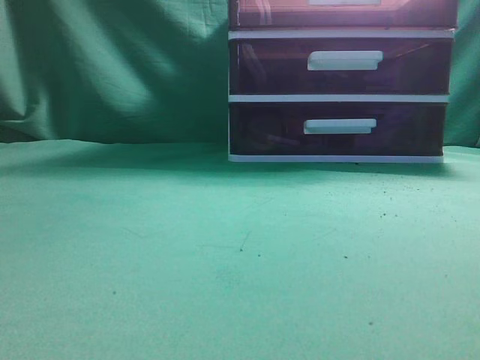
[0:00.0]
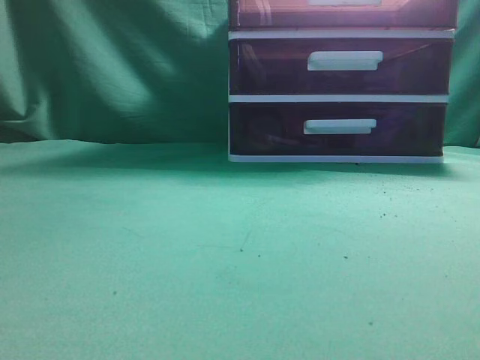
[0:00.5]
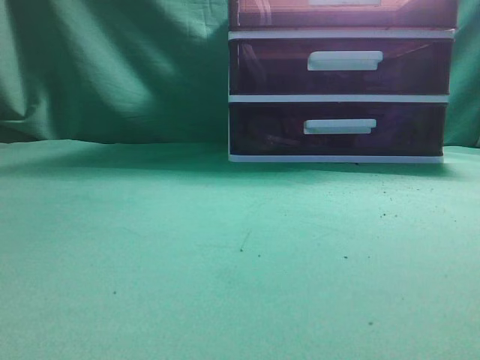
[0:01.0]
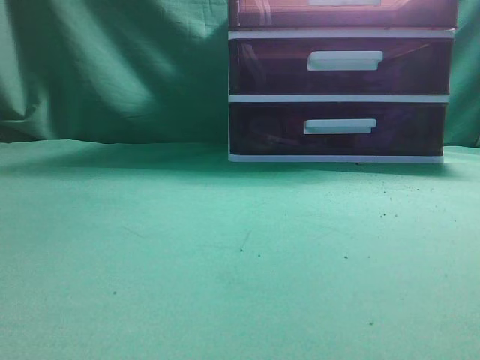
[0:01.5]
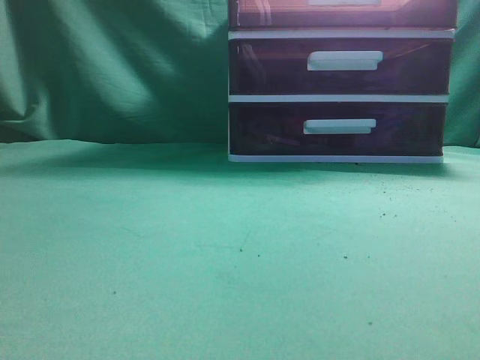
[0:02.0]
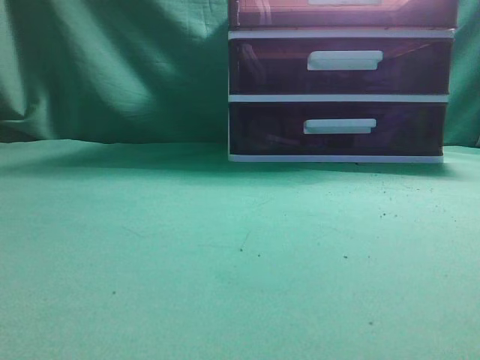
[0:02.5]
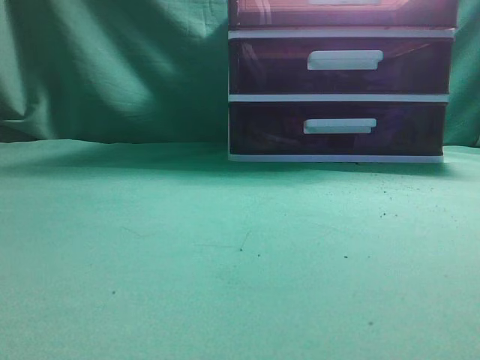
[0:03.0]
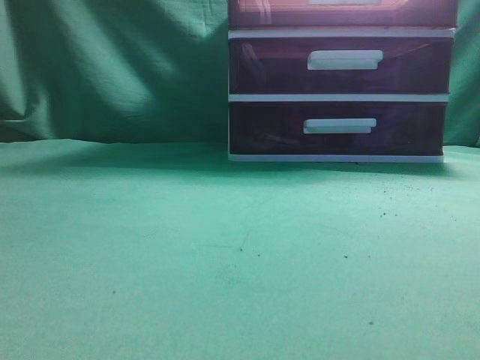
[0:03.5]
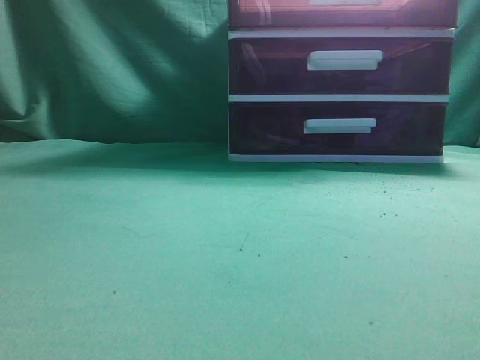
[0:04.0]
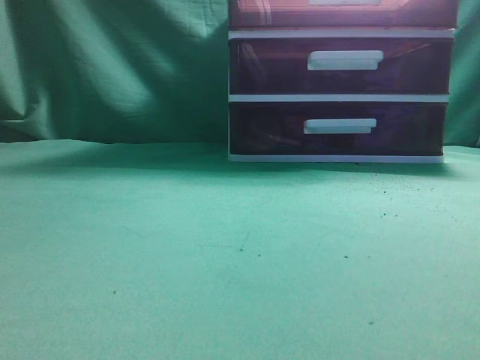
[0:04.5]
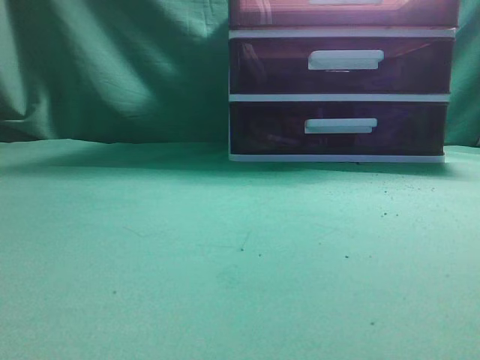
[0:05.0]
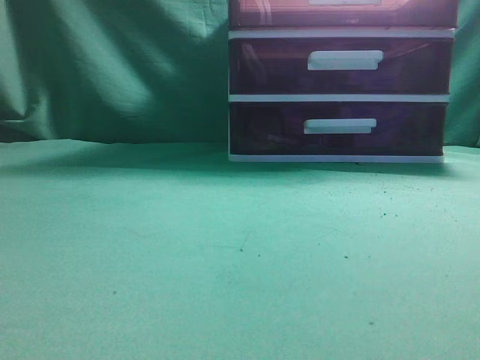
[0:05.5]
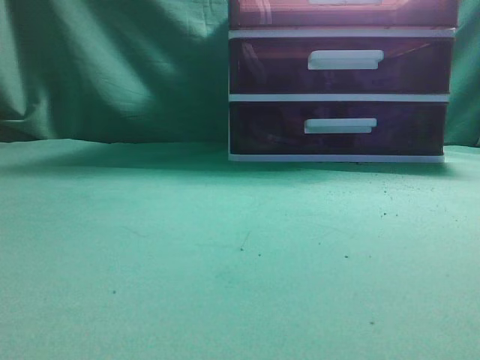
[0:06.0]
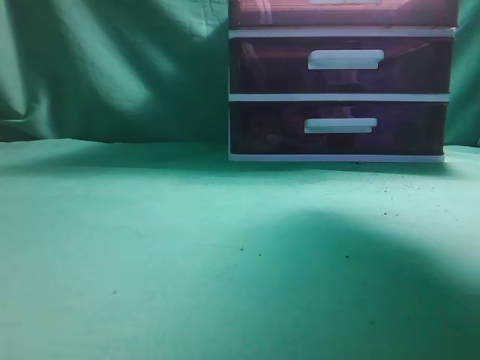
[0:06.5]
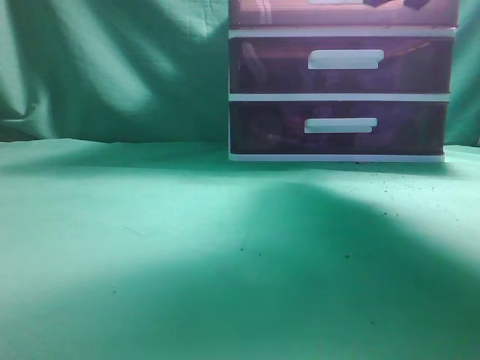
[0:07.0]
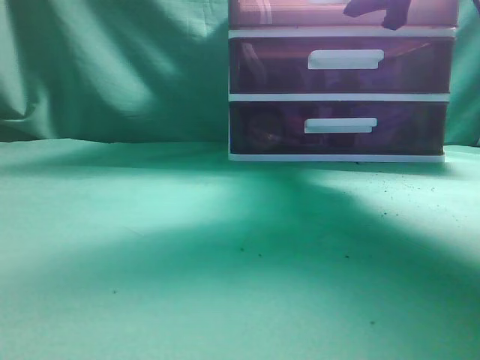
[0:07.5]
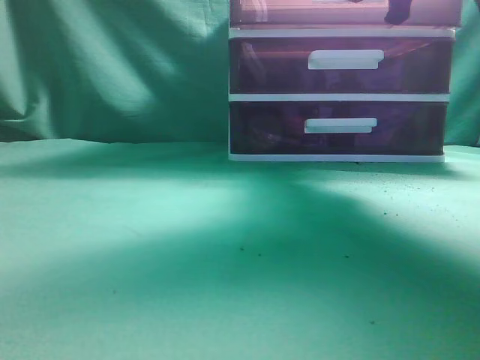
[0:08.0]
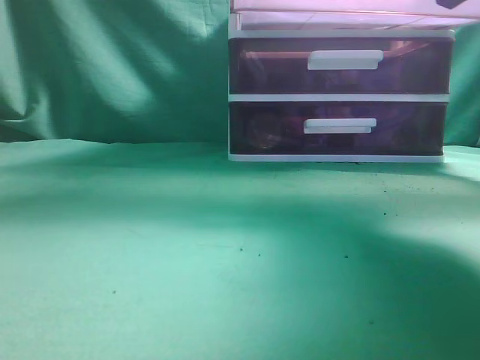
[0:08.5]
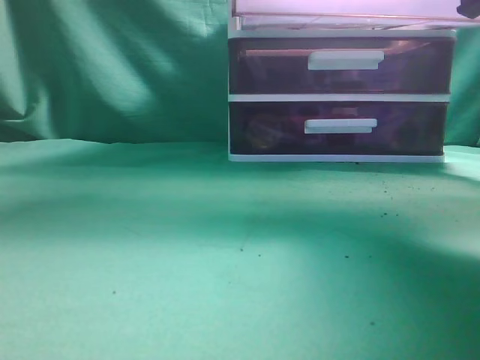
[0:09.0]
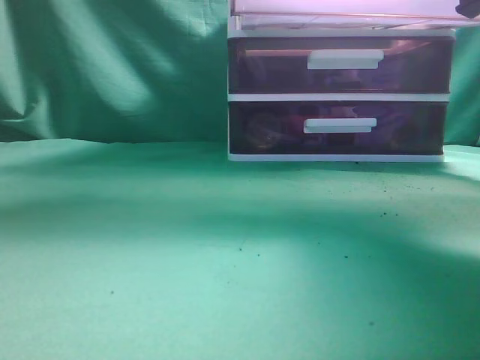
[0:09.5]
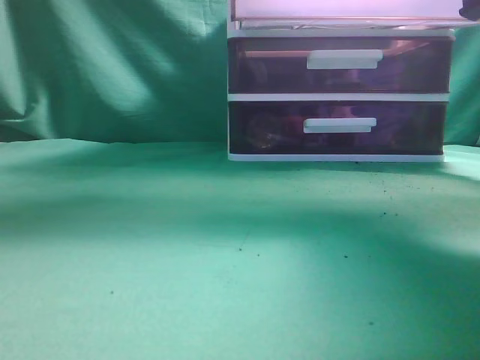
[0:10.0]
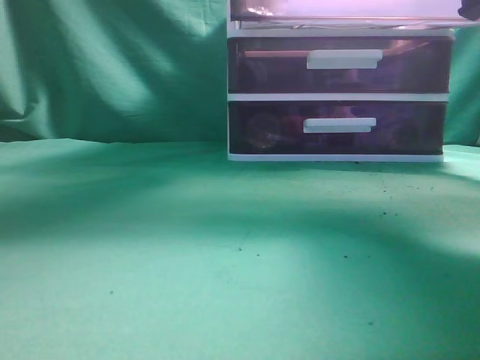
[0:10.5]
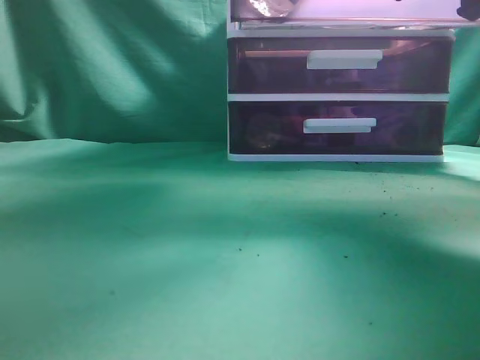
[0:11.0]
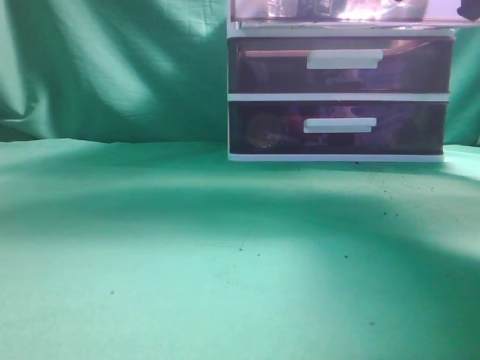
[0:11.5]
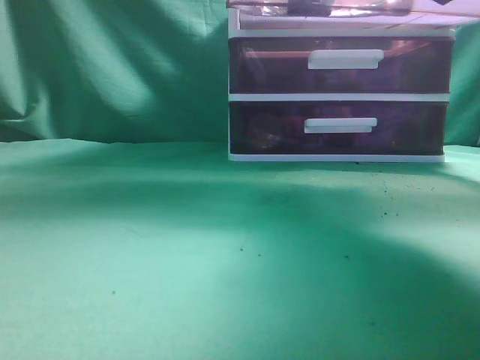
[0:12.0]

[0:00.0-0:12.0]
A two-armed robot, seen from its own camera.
Task of the whole recording: place the water bottle into the drawer.
Step, 0:00.0 to 0:08.5: Open the drawer.
Step, 0:09.0 to 0:11.5: Place the water bottle inside the drawer.
0:06.0 to 0:08.0: The right gripper heads forward, covering approximately 20 cm, and opens and closes again.
0:08.0 to 0:10.0: The left gripper is displaced forward, to the right and upward by some 30 cm, while the right gripper is displaced backward by about 10 cm.
0:10.0 to 0:12.0: The left gripper travels backward and upward by approximately 10 cm, and closes its fingers.

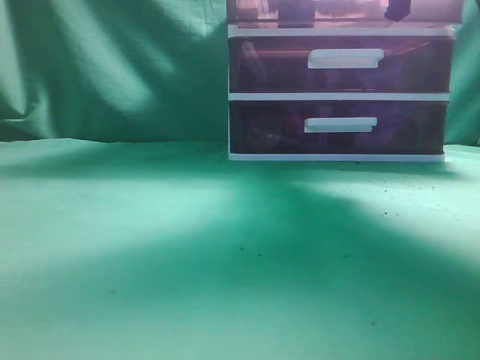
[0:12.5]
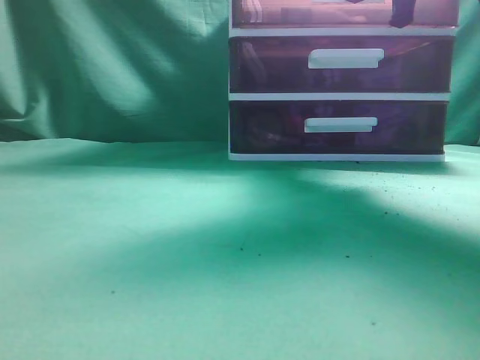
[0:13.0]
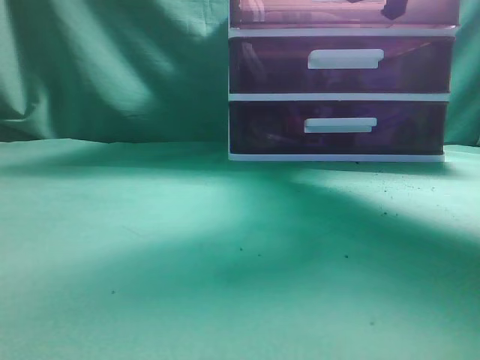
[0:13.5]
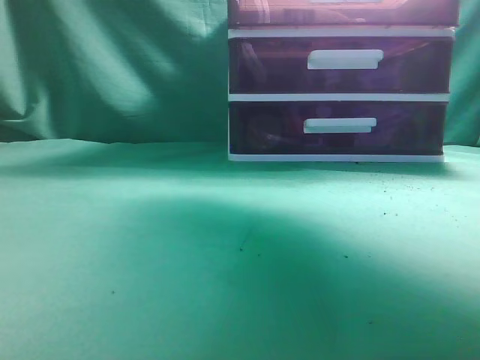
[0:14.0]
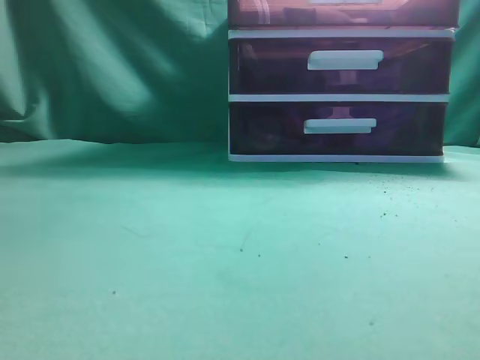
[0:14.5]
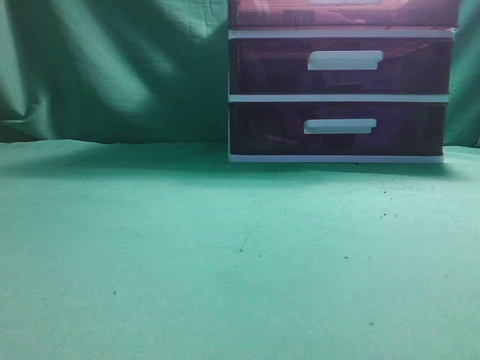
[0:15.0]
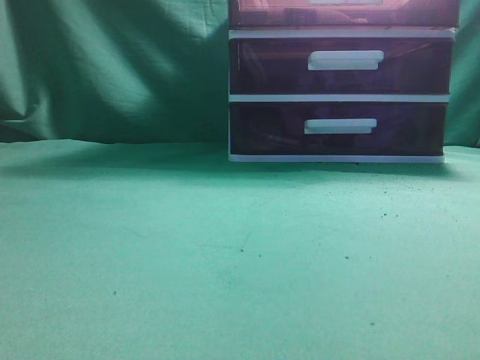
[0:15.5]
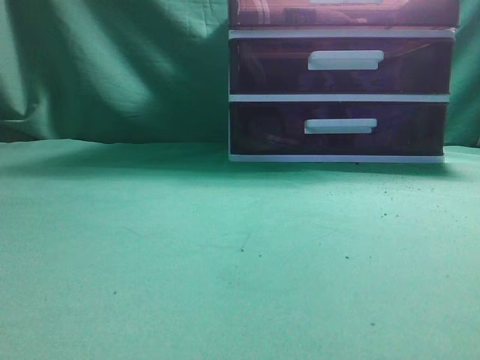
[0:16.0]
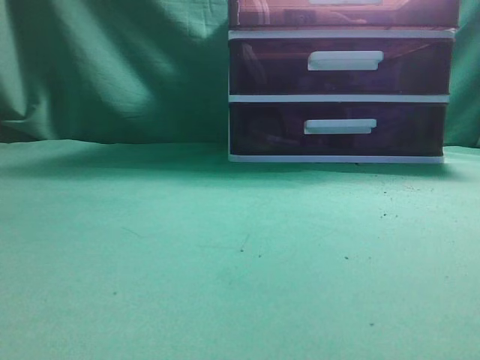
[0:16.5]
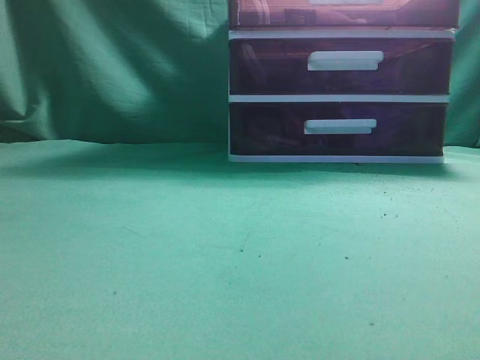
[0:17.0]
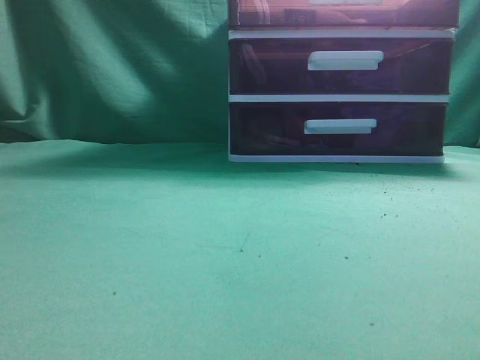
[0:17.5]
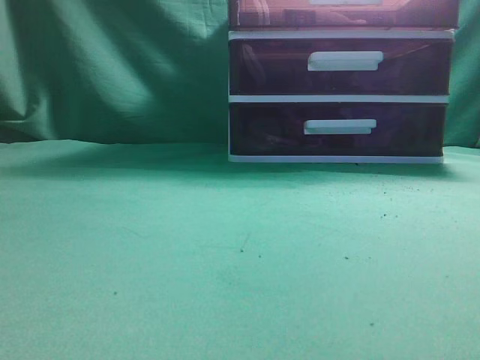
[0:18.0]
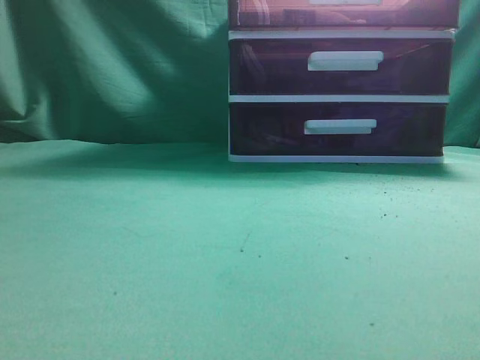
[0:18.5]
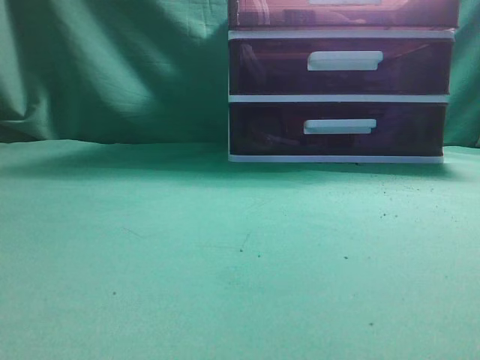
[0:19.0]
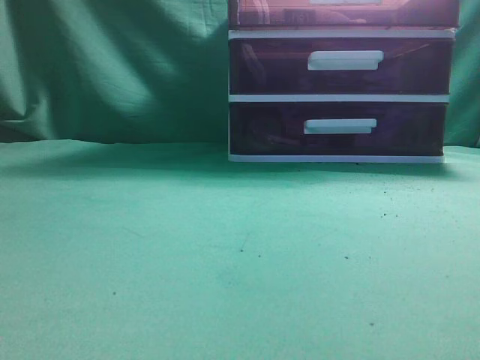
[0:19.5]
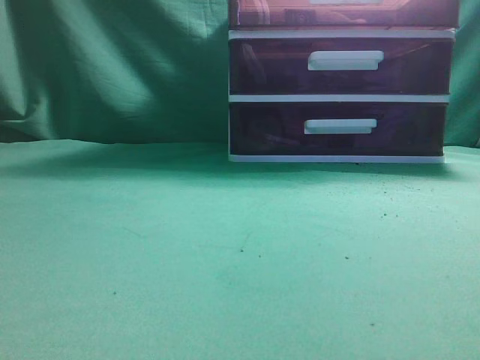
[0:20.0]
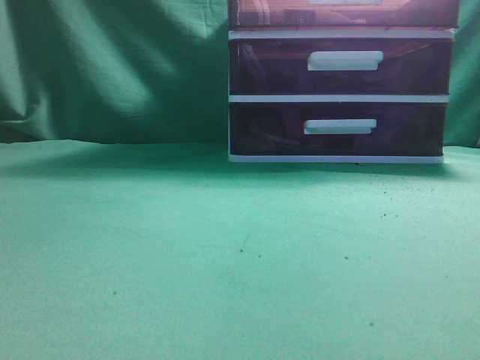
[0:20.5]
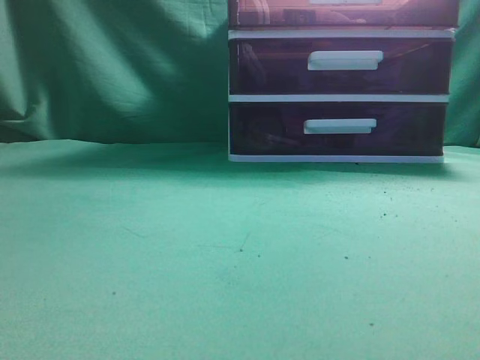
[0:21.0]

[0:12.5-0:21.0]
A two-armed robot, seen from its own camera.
Task of the whole recording: place the water bottle into the drawer.
Step, 0:12.5 to 0:13.5: Close the drawer.
0:12.5 to 0:14.5: The right gripper shifts some 15 cm upward and backward. The left gripper goes about 10 cm backward and to the left.

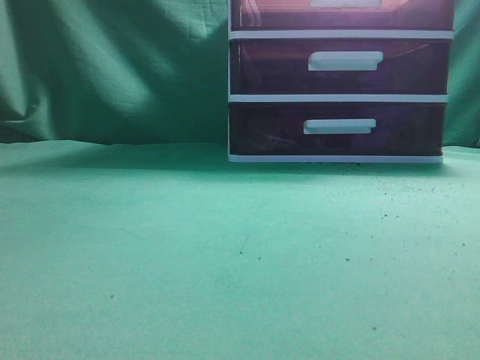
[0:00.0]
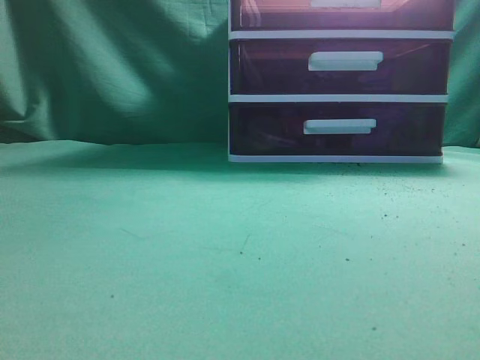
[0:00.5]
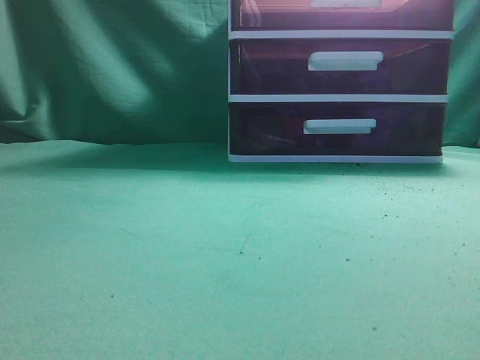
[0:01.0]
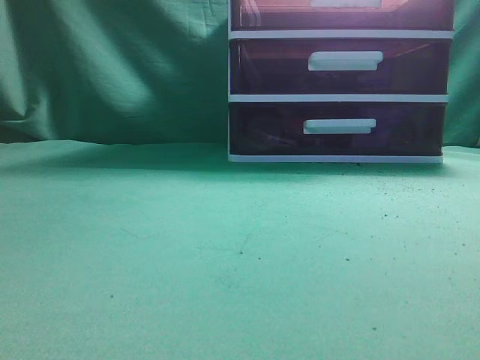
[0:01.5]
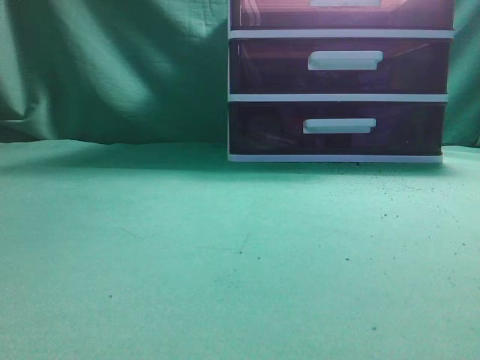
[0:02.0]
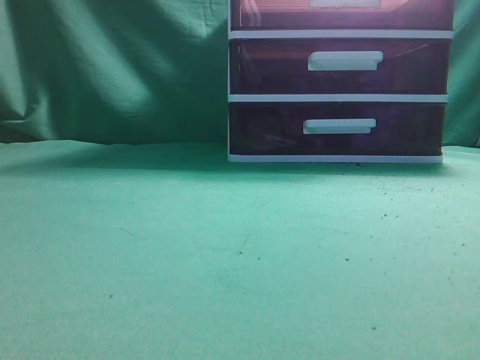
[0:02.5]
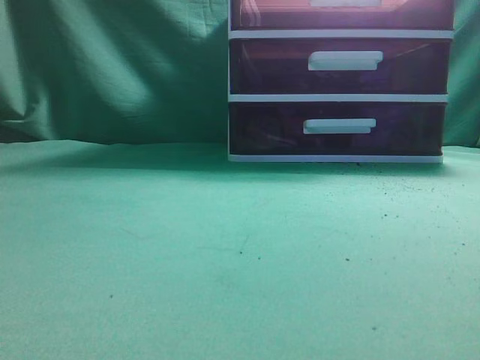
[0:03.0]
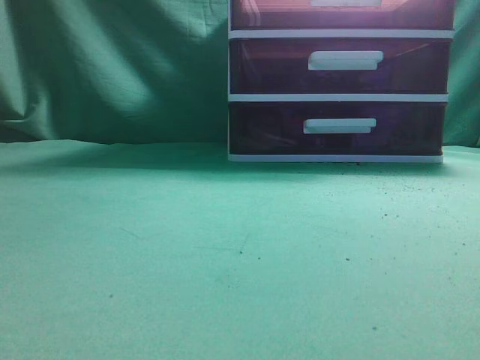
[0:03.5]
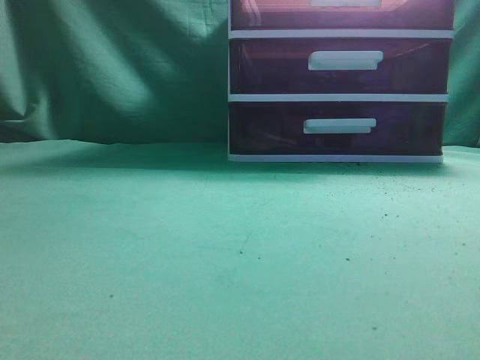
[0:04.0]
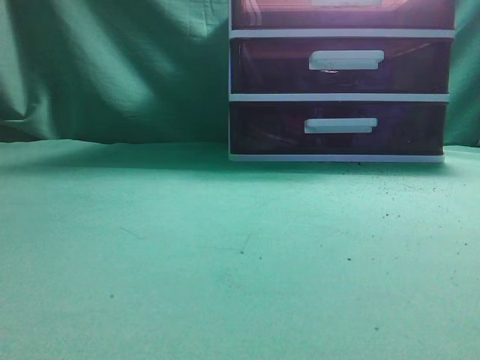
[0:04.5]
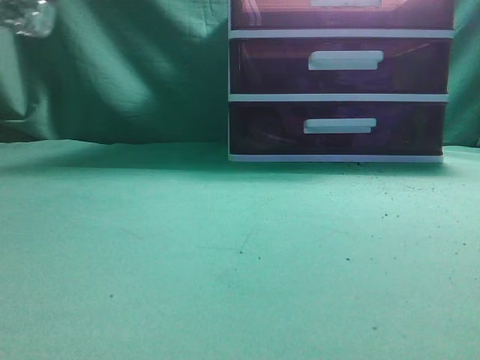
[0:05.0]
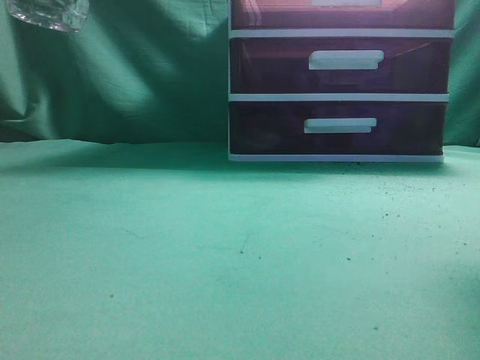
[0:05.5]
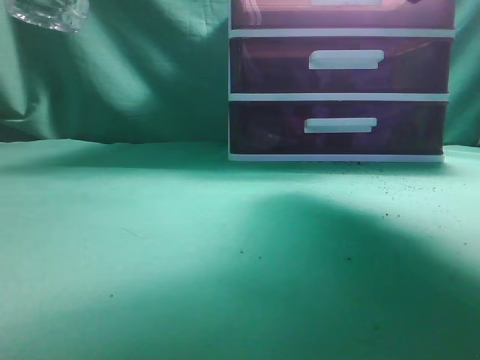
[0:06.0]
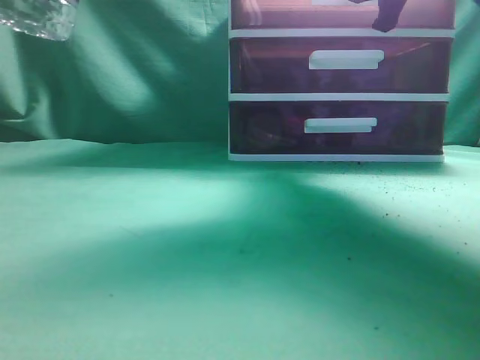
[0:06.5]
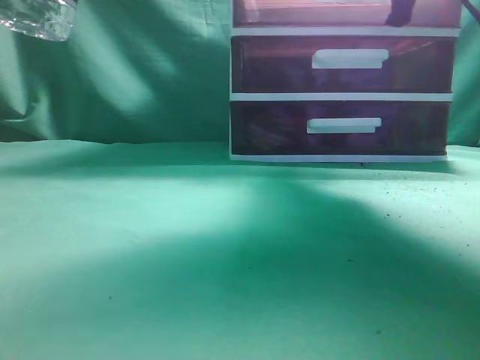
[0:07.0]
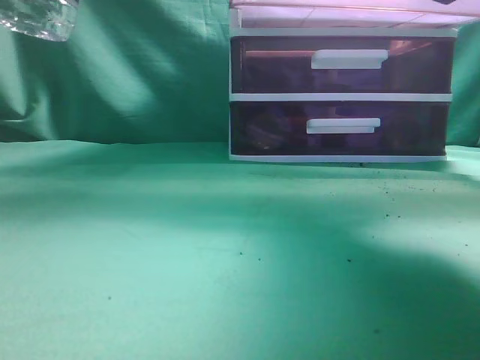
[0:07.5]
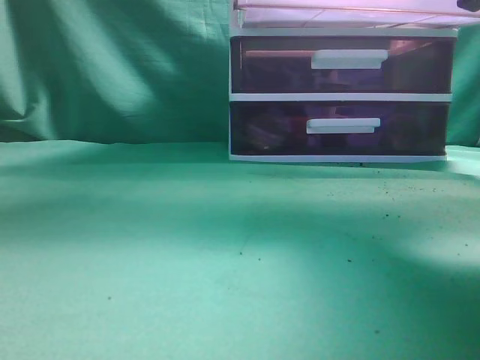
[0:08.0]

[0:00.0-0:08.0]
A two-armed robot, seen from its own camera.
Task of the whole recording: place the water bottle into the drawer.
Step, 0:00.0 to 0:07.5: Open the drawer.
0:04.0 to 0:06.0: The left gripper travels upward and to the right by some 20 cm; the right gripper heads forward, covering some 30 cm, and opens its fingers.
0:06.0 to 0:08.0: The right gripper is displaced backward by some 10 cm, and closes its fingers; the left gripper moves upward, about 10 cm.
